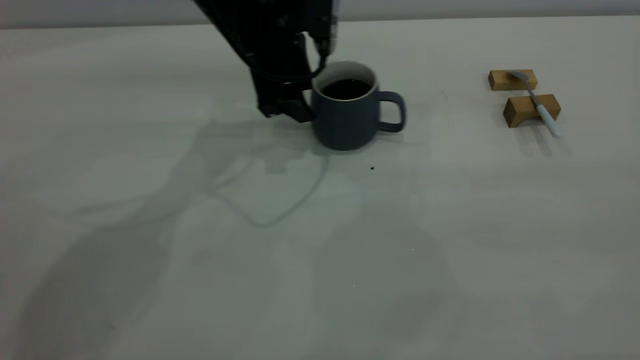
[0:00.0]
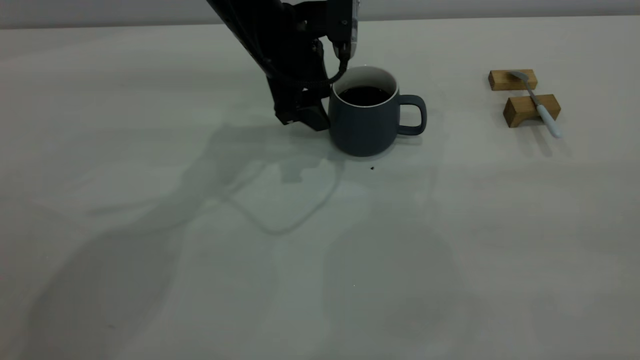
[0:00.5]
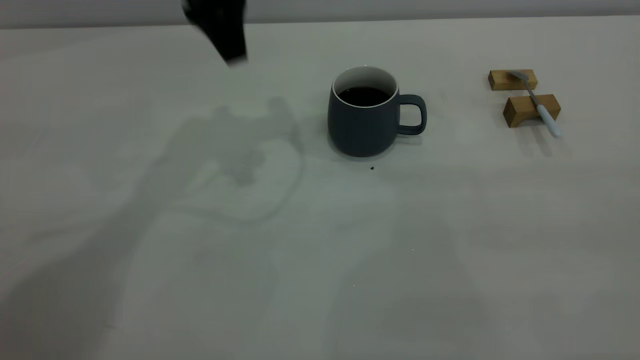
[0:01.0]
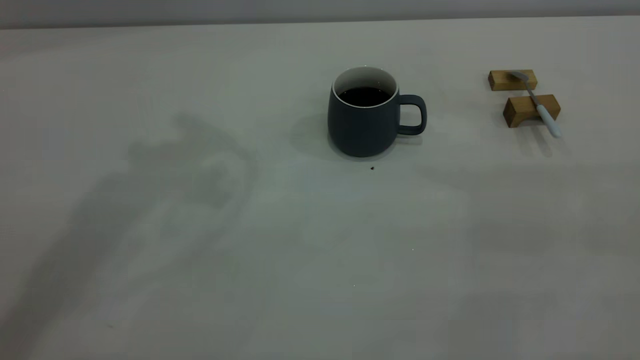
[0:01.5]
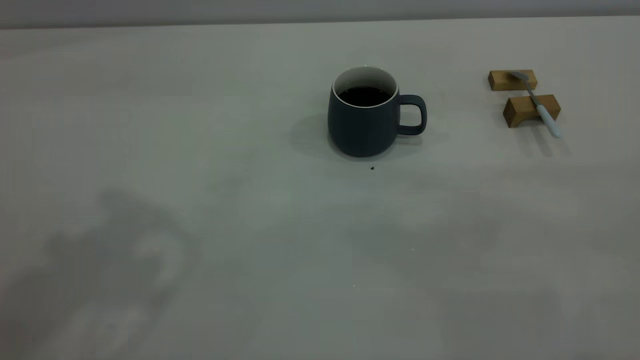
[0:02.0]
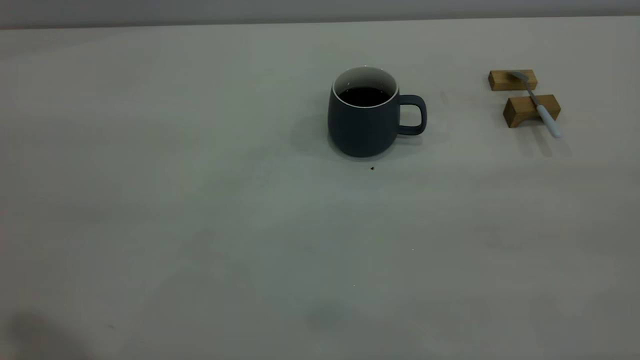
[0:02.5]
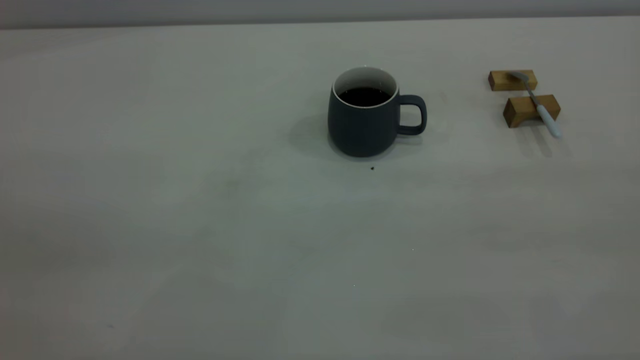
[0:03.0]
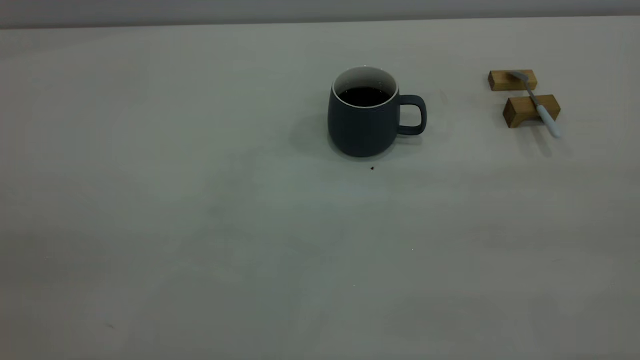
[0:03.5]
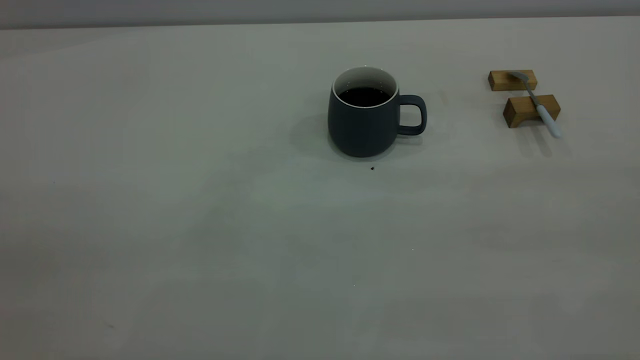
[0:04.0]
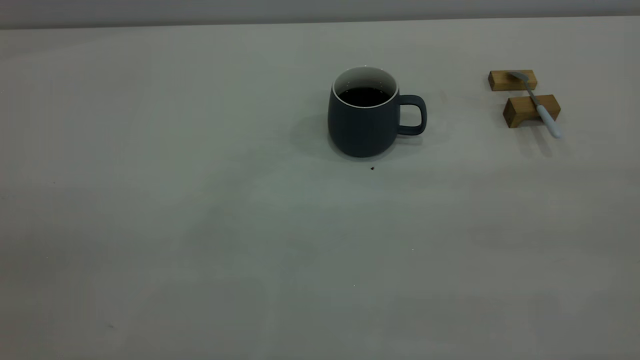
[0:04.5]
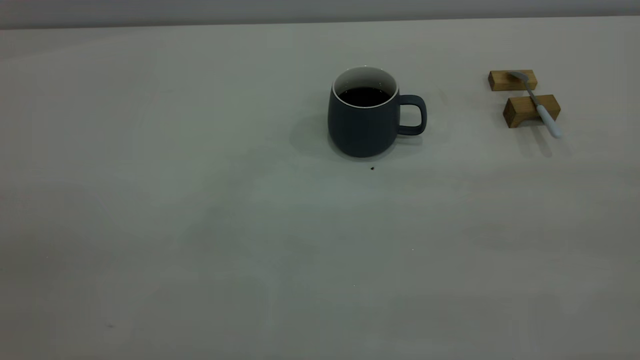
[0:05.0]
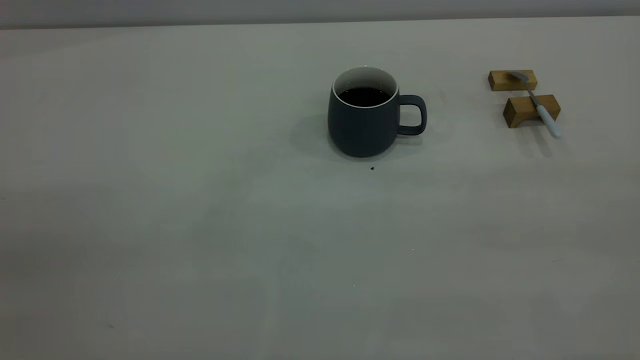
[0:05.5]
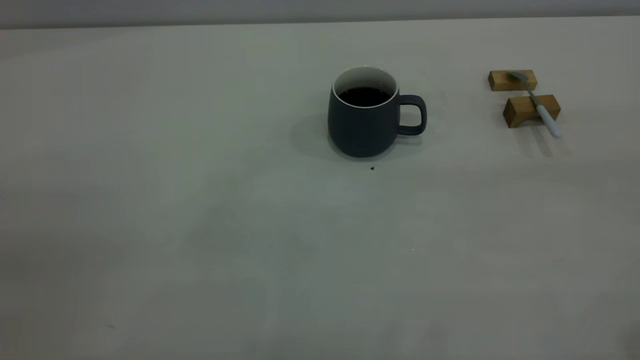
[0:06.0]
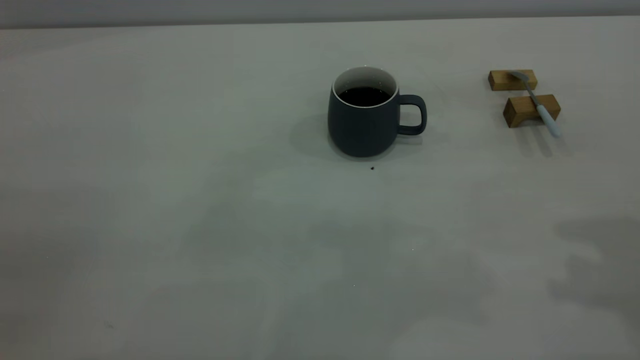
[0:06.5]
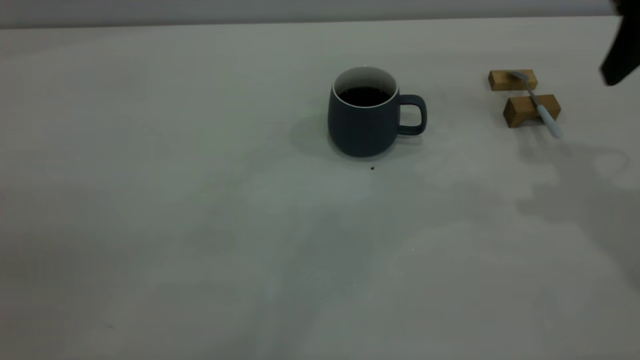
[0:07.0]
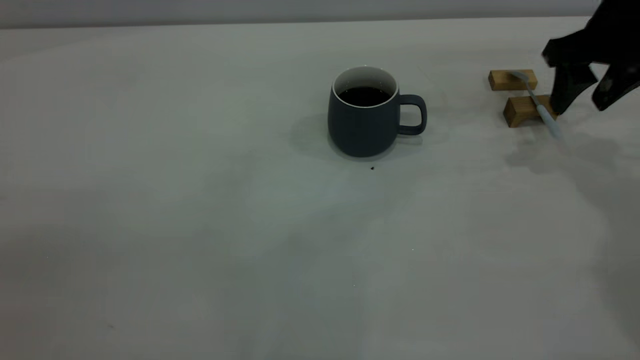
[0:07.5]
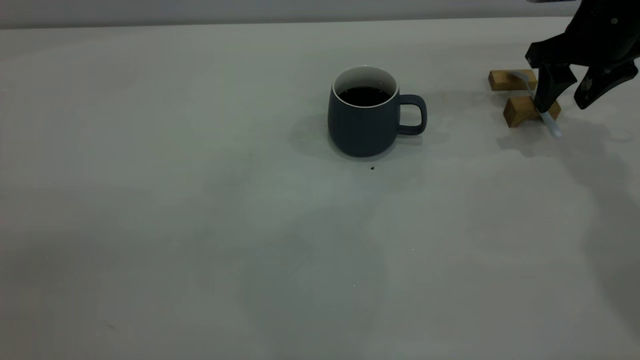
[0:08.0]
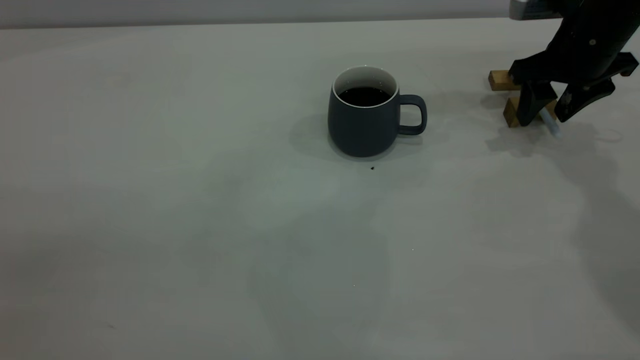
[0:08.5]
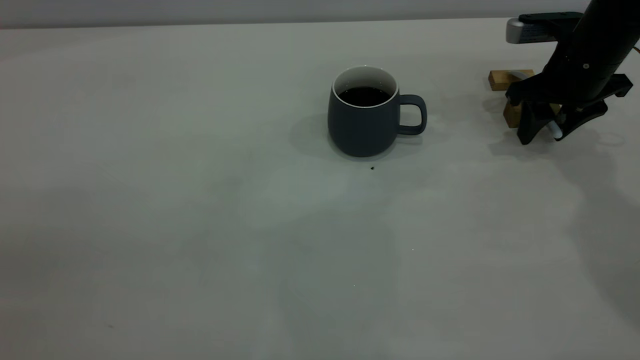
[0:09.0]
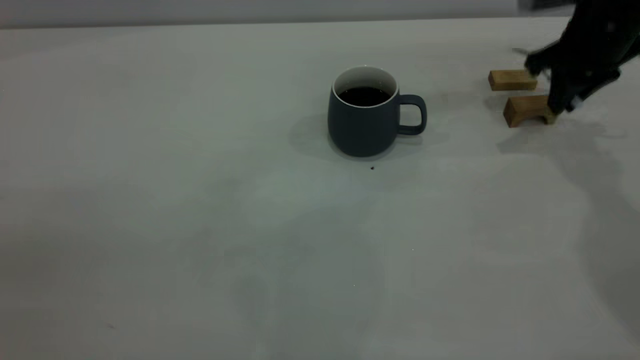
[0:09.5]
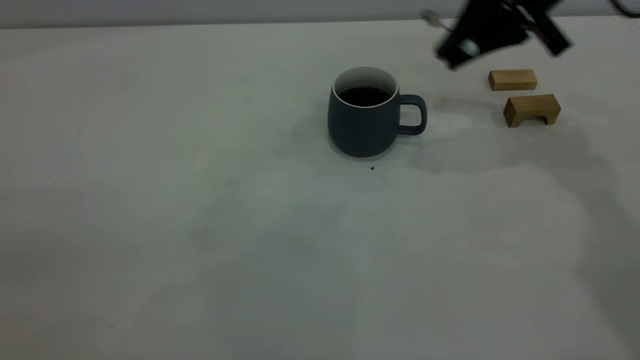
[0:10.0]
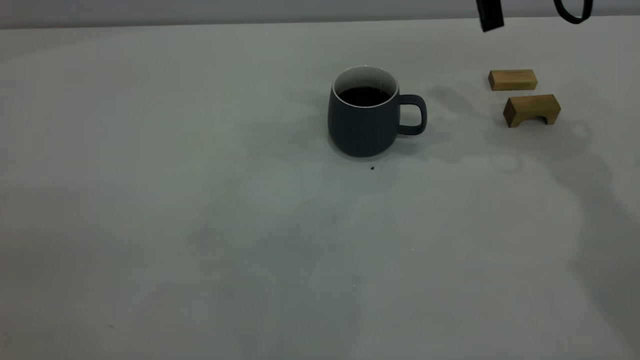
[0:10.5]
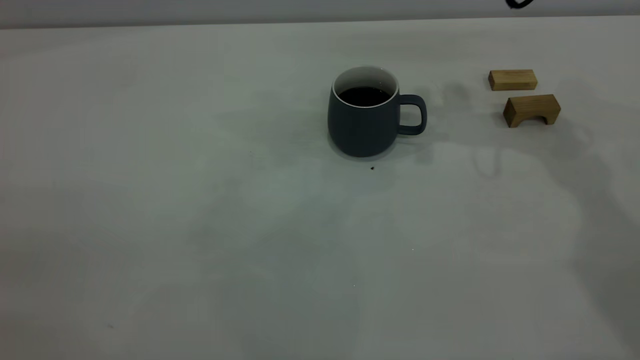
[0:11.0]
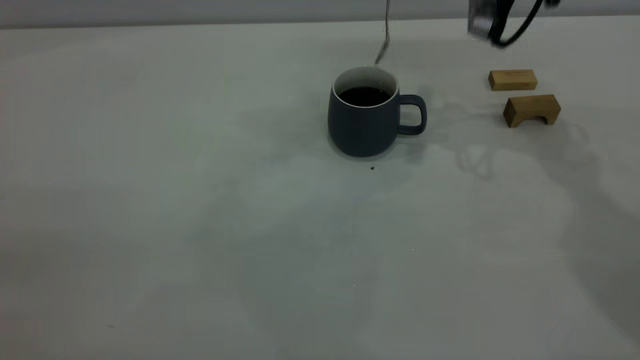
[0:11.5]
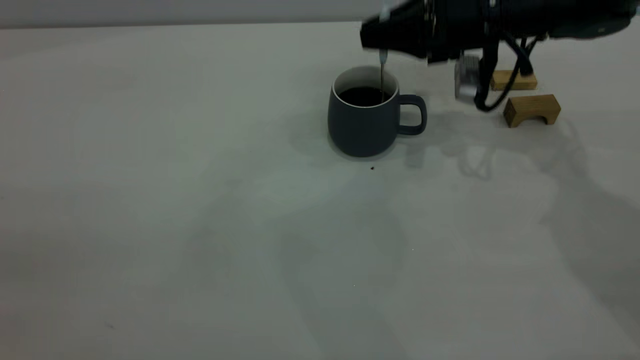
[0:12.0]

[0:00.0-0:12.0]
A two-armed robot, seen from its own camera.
Step, 0:01.0 to 0:09.5: Pick up the spoon.
0:00.0 to 0:02.0: The left gripper is displaced upward and backward by about 40 cm.
0:06.0 to 0:08.0: The right gripper shifts some 40 cm forward and downward.
0:08.0 to 0:10.0: The right gripper shifts roughly 10 cm to the left and upward, and closes its fingers.
0:10.0 to 0:12.0: The right gripper heads downward, covering approximately 10 cm.

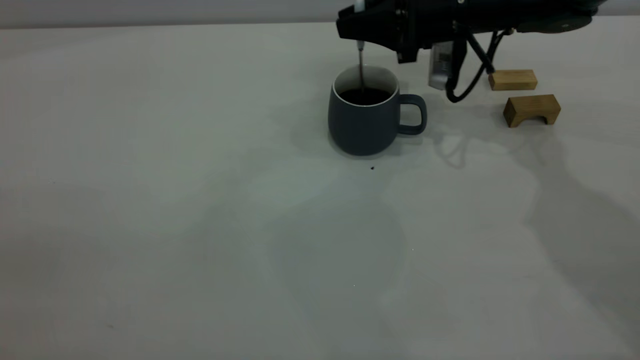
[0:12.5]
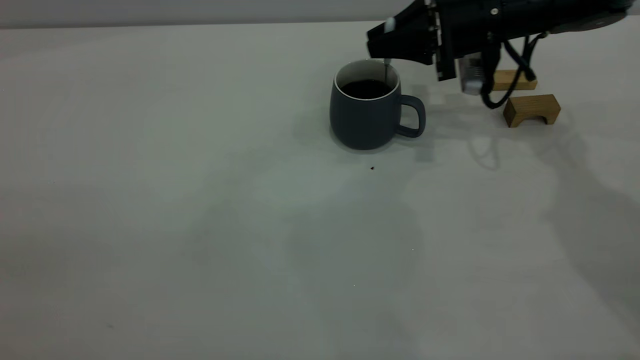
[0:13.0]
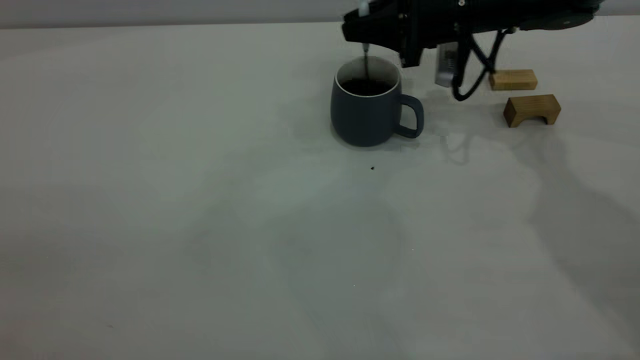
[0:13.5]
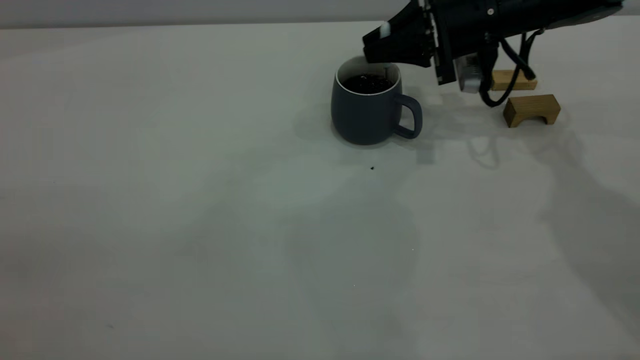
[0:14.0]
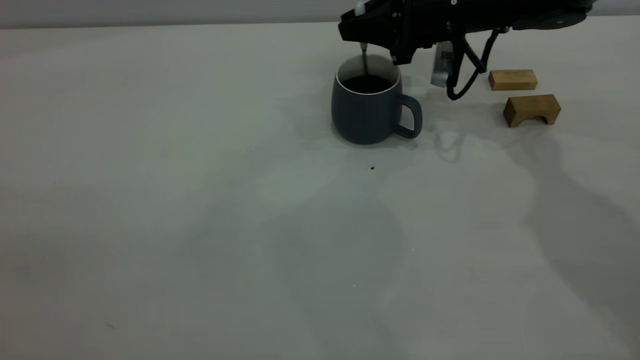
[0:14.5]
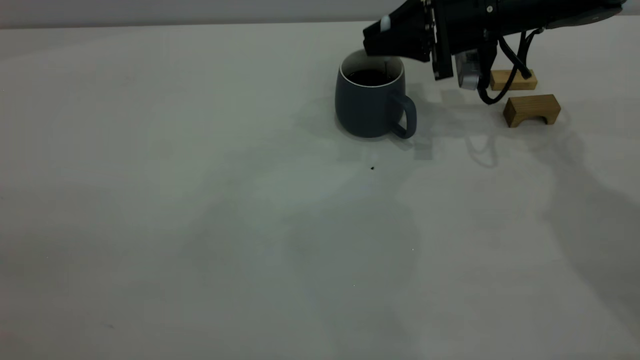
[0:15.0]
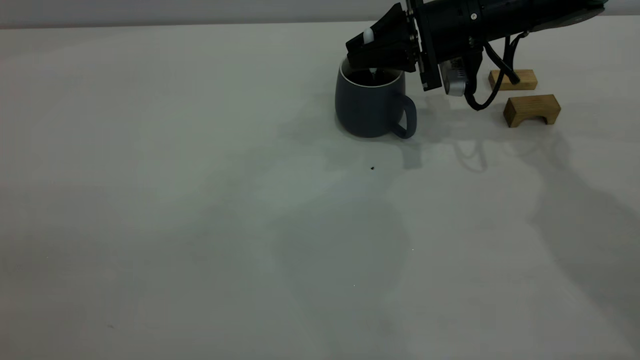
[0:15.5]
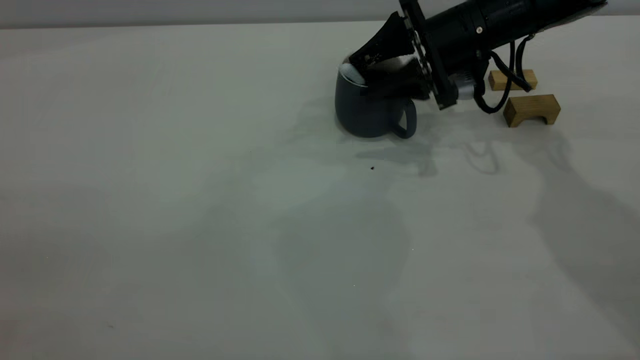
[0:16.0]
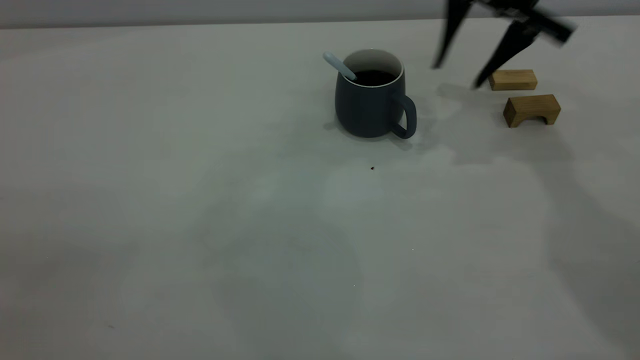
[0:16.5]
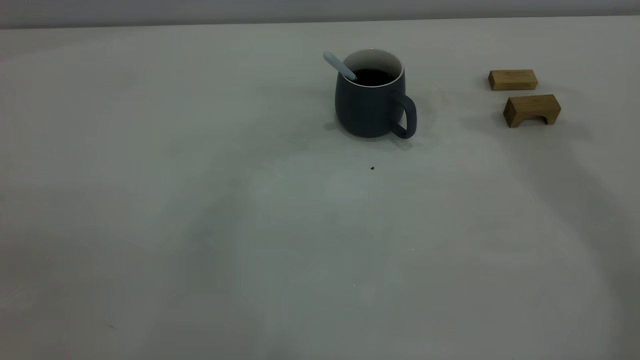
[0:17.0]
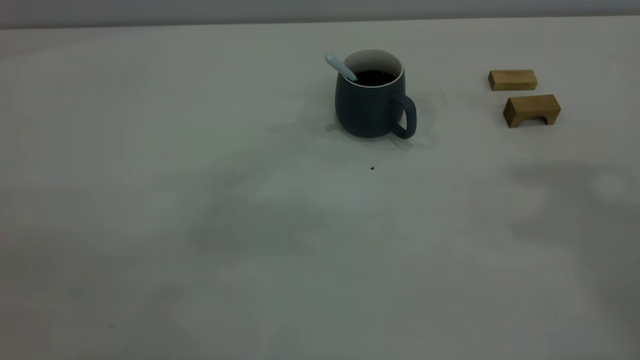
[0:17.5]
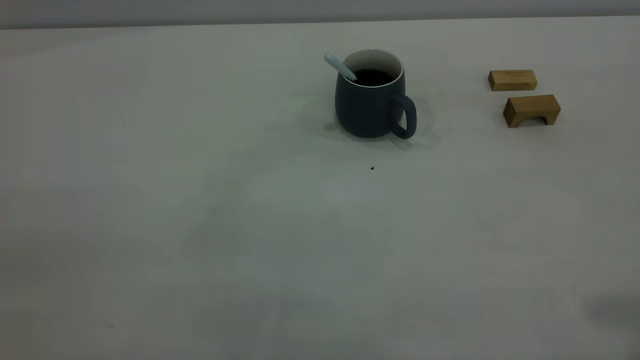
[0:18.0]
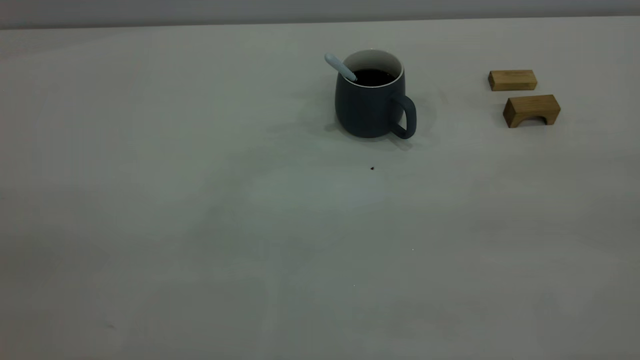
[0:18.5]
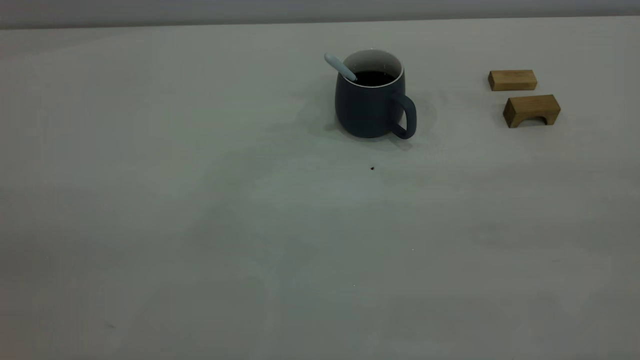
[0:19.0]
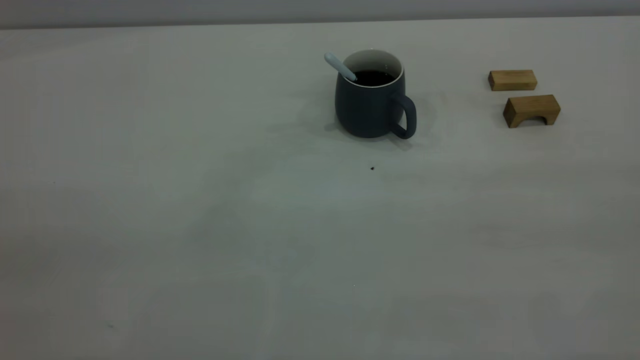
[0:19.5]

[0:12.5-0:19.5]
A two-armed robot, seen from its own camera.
Step, 0:12.5 to 0:16.0: Stir the coffee in the cup.
0:12.5 to 0:14.5: The grippers make only small movements.
0:14.5 to 0:16.0: The right gripper opens up.
0:16.0 to 0:17.5: The right gripper goes approximately 40 cm upward and backward, and closes.

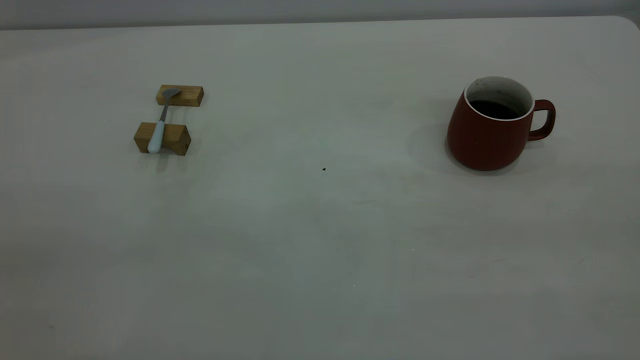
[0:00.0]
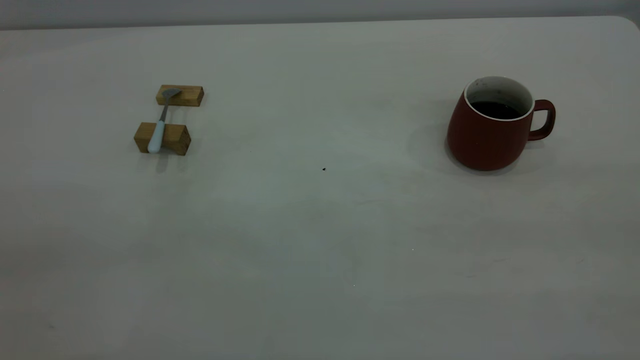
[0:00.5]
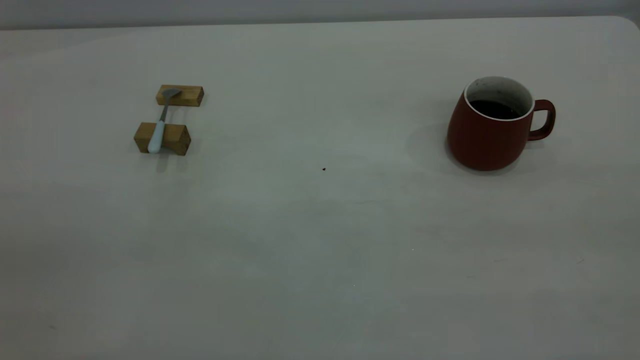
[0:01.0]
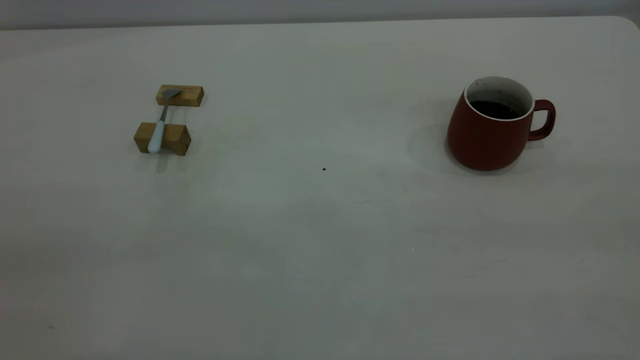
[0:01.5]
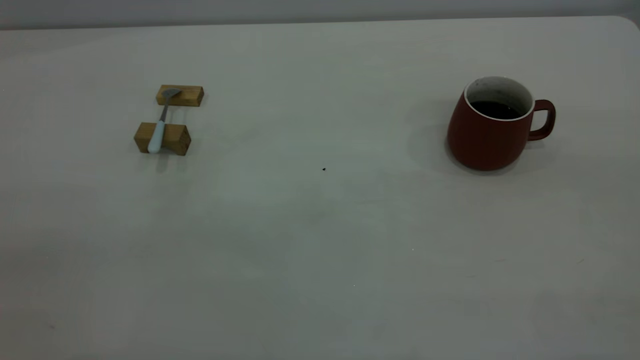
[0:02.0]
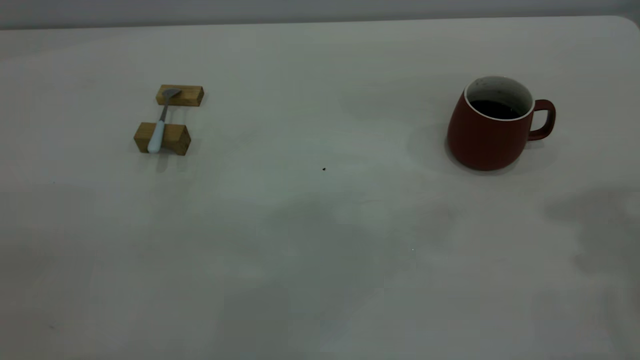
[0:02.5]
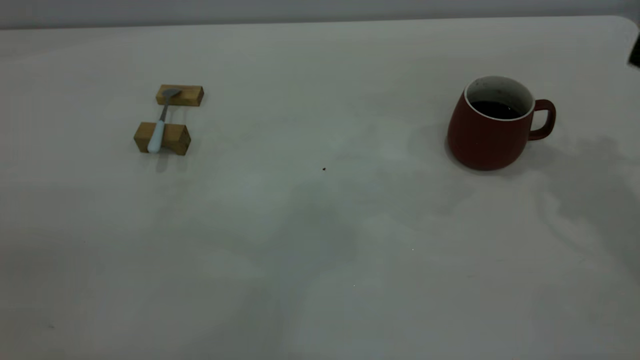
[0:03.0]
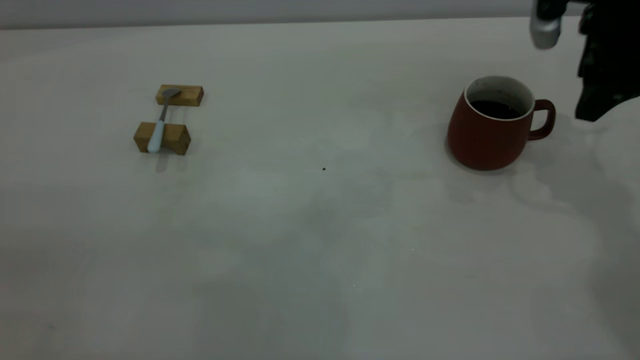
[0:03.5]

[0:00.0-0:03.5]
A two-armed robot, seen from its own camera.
0:02.0 to 0:03.5: The right gripper travels forward and downward by roughly 40 cm.
